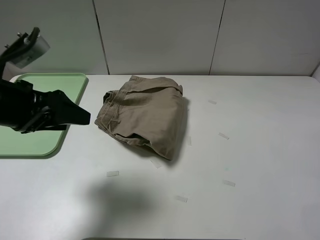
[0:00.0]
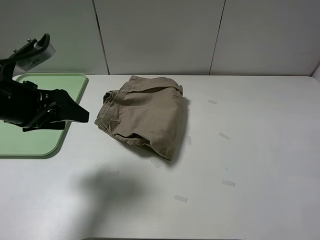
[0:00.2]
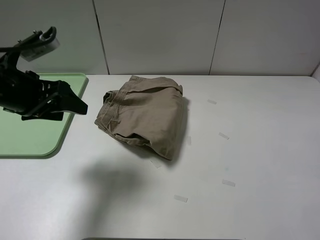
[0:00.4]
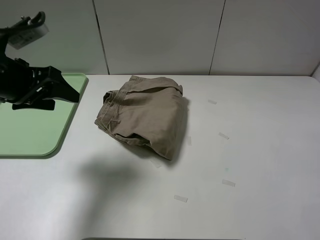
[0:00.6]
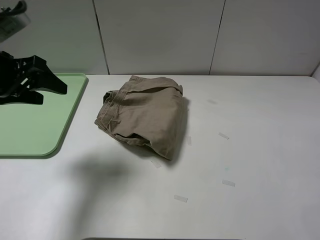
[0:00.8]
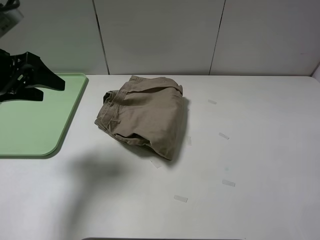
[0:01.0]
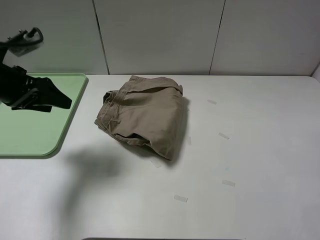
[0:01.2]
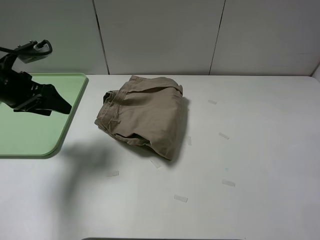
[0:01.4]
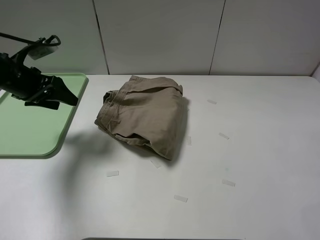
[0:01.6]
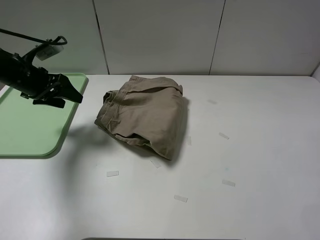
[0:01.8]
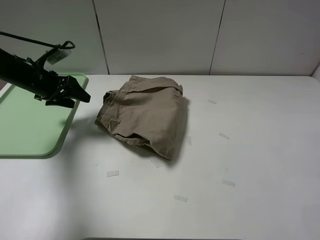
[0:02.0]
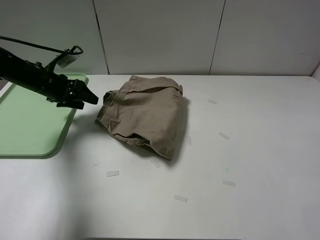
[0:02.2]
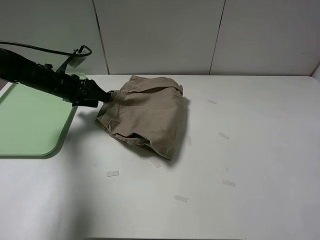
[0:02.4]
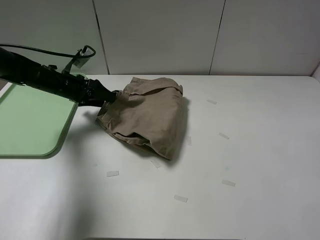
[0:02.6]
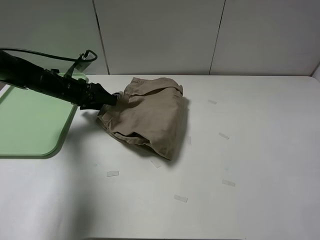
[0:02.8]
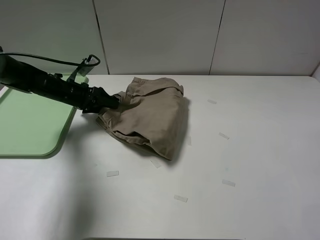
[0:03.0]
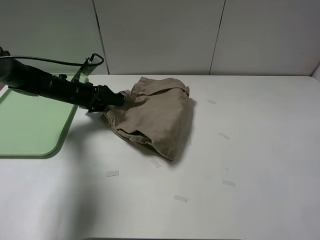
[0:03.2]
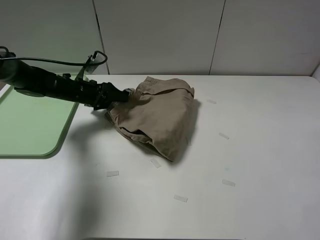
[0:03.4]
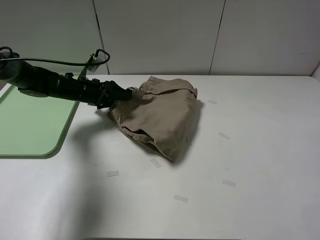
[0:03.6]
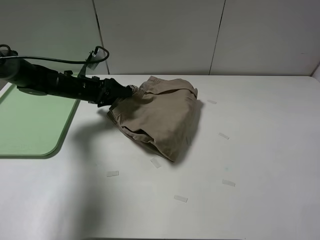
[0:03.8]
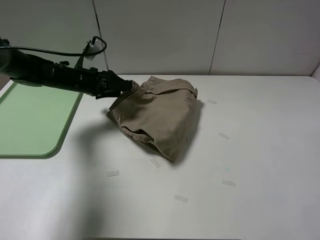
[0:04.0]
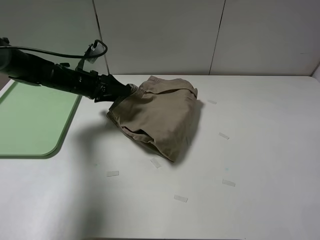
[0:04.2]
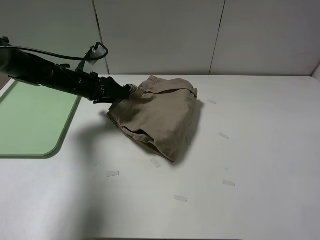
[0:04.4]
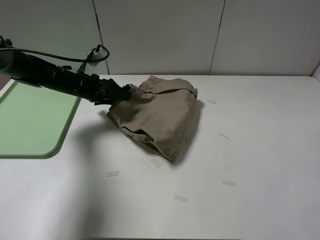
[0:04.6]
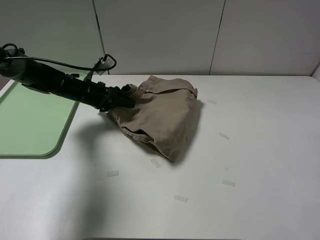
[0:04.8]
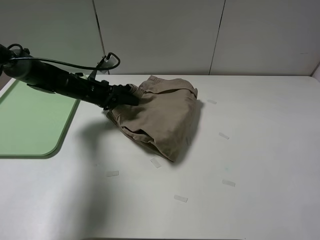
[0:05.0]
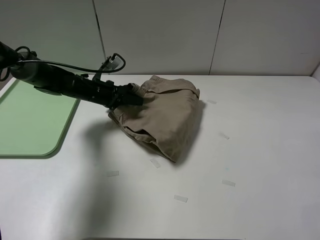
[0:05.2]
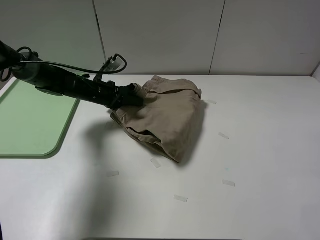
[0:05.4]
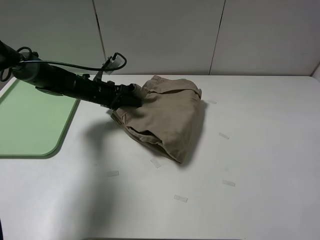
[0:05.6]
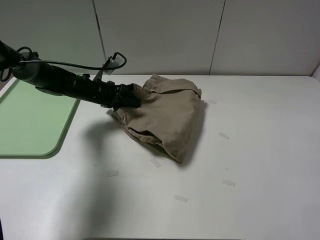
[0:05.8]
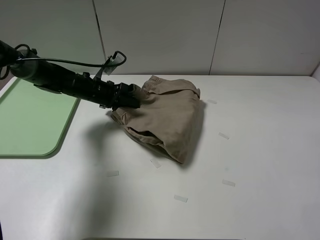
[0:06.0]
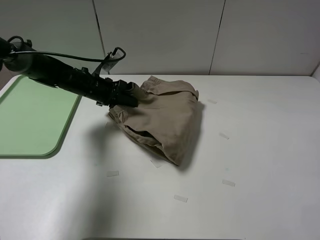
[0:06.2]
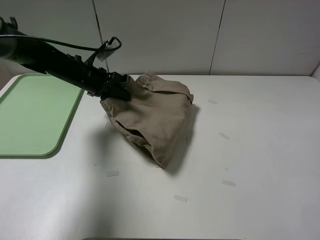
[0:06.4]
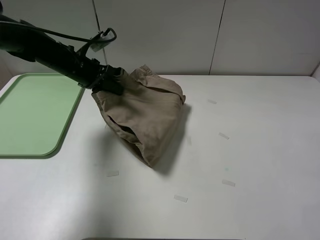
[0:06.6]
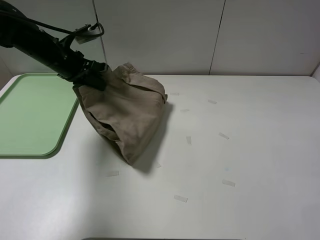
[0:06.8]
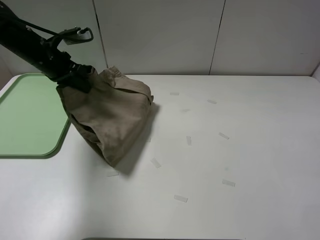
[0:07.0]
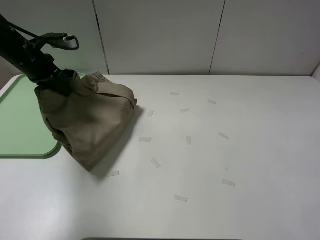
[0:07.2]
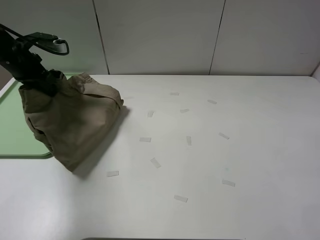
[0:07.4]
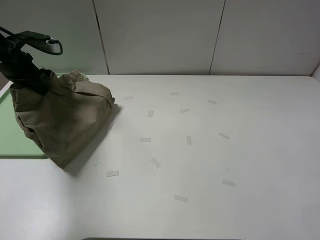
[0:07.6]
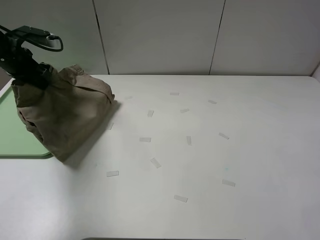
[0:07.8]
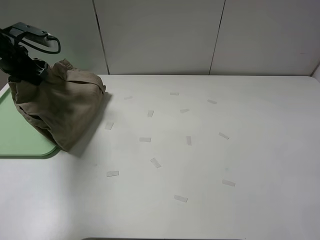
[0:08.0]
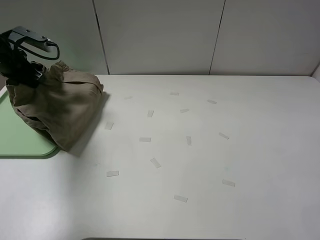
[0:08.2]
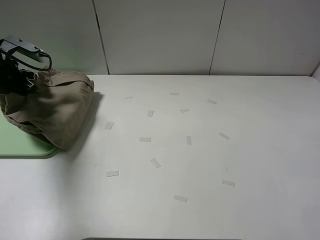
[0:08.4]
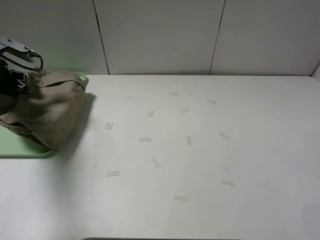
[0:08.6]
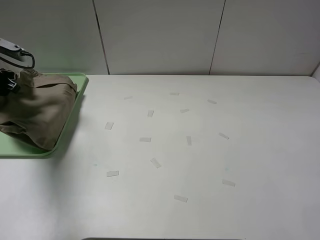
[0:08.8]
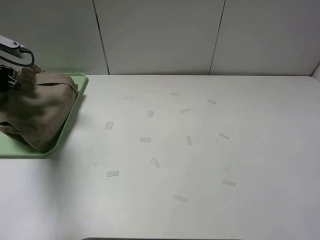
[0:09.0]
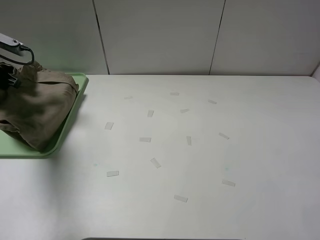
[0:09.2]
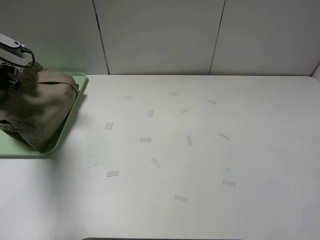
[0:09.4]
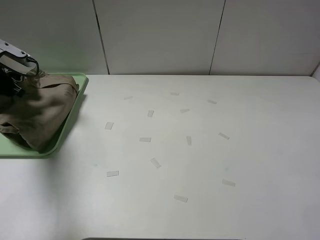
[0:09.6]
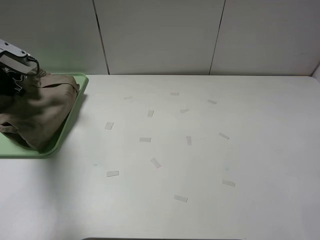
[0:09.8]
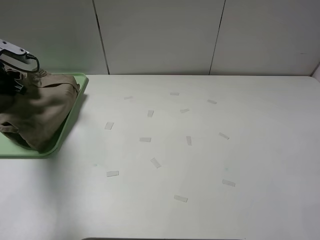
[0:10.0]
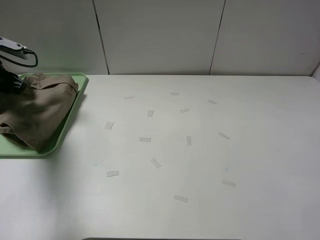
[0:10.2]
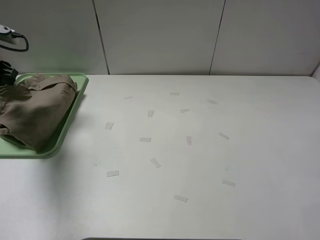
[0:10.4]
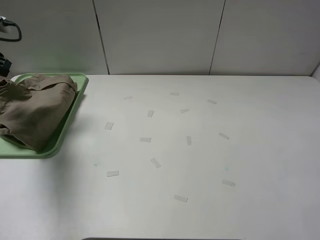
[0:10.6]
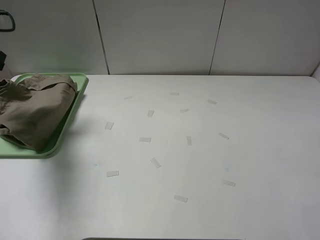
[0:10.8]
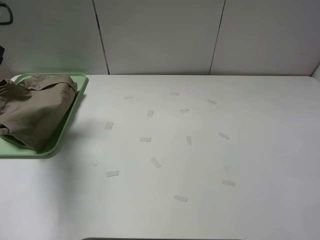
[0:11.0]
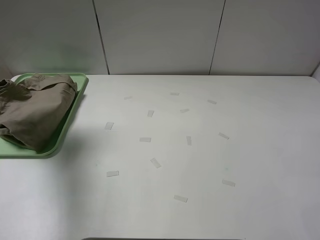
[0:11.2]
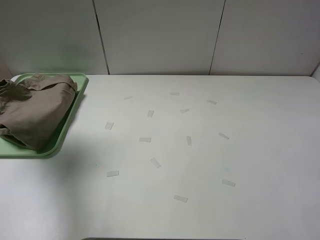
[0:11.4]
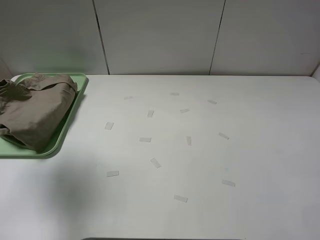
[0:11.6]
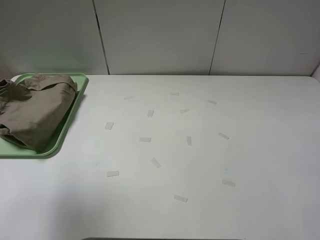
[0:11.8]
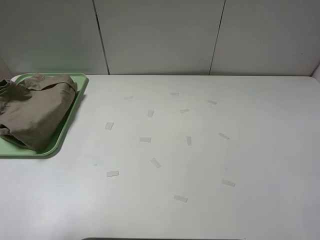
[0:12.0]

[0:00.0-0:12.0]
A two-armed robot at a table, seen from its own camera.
Task of the whole recording: fold the khaki jeans in half with two grippers, then fold them in half again, and use the left claw to place the folded fold khaki jeans on the tray.
Step, 0:00.0 to 0:03.0: Grasp the khaki trousers with the left gripper.
Step, 0:03.2 to 0:10.4: Fold the khaki trousers from left to right with the left gripper.
0:00.0 to 0:01.6: The left gripper goes approximately 15 cm forward and to the left.
0:01.6 to 0:03.0: The left gripper is displaced downward, forward and to the right by some 15 cm.
0:03.0 to 0:04.4: The grippers stay close to where they were, moving slightly.
0:04.4 to 0:06.0: The left gripper closes.
0:06.0 to 0:07.6: The left gripper travels to the left and upward by about 20 cm.
0:07.6 to 0:09.0: The left gripper travels to the left by approximately 5 cm.
0:09.0 to 0:10.4: The left gripper opens up.
0:10.4 to 0:12.0: The left gripper is displaced backward and upward by some 35 cm.

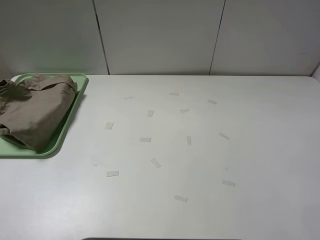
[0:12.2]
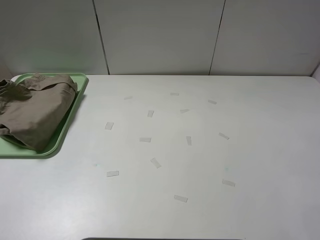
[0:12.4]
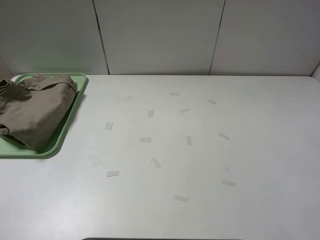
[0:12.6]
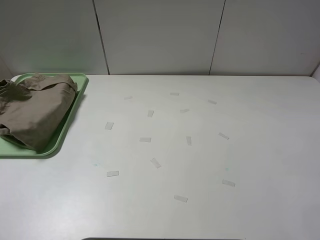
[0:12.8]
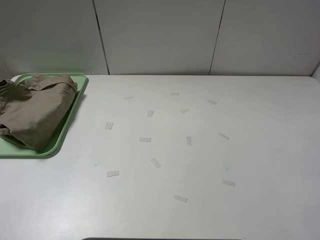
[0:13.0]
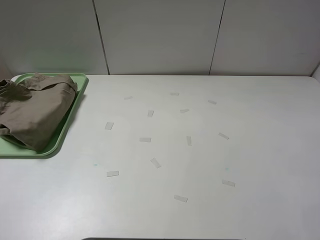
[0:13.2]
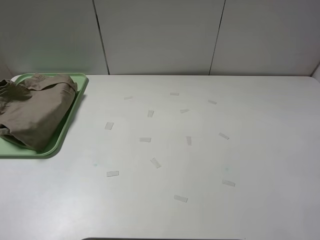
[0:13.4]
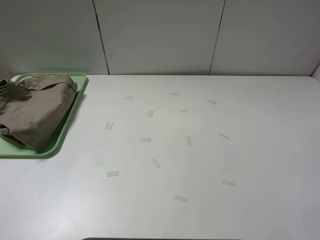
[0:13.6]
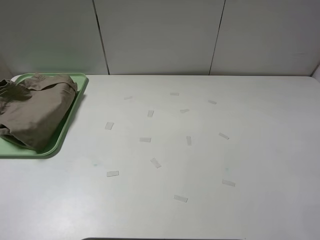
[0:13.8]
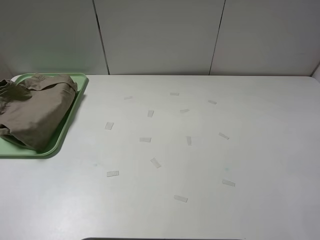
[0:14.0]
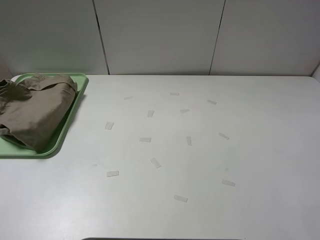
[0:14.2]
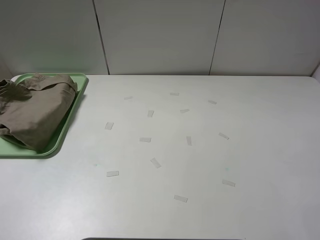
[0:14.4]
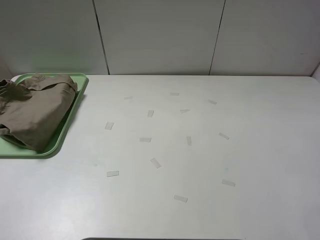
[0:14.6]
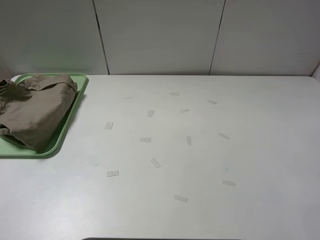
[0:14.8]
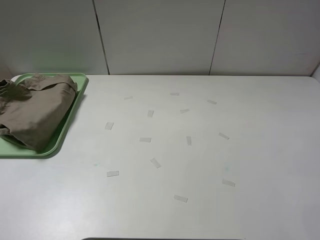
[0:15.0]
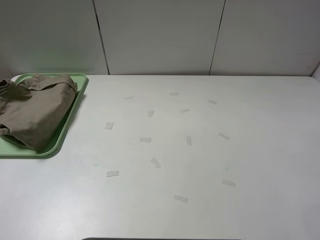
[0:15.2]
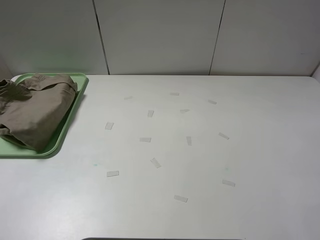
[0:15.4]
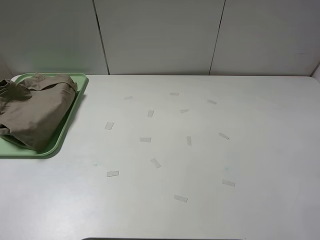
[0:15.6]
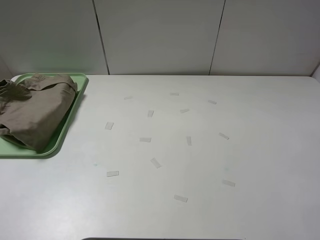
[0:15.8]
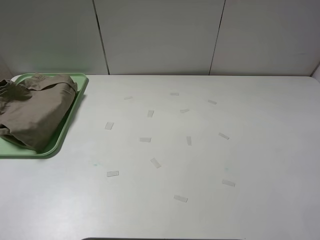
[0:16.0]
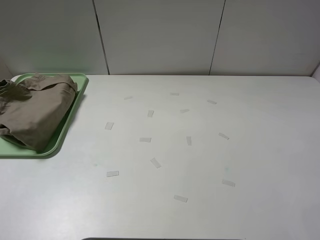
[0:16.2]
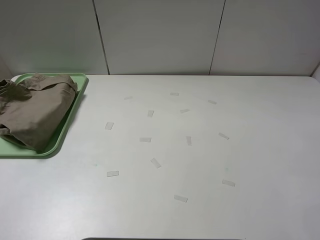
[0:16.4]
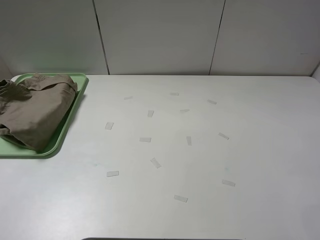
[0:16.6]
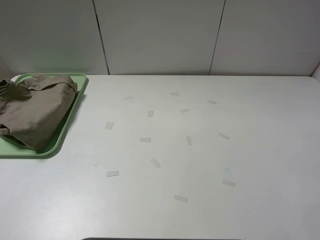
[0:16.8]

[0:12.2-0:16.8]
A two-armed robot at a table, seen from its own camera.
Task of the whole recording: fold the khaki jeans in half with two grippers, then fold them in half again, and use the left claw to place the folded fold khaki jeans on the tray.
0:15.2 to 0:16.8: Both grippers stay put.

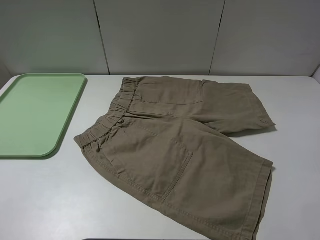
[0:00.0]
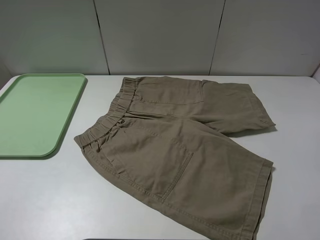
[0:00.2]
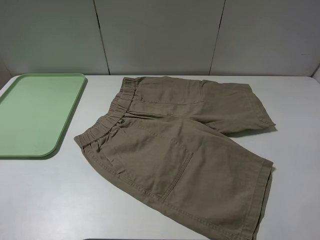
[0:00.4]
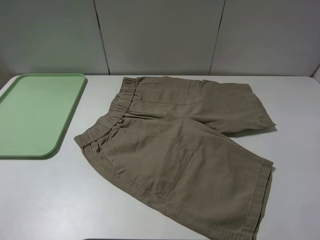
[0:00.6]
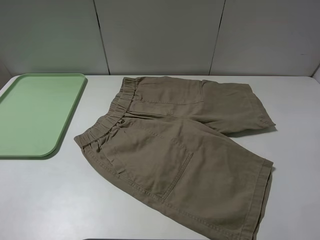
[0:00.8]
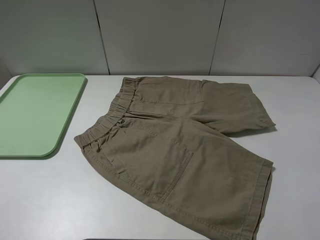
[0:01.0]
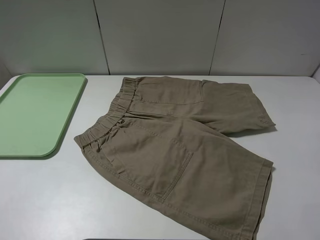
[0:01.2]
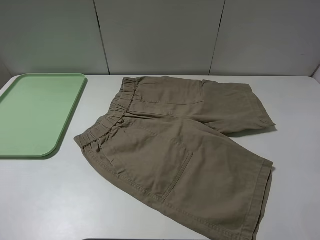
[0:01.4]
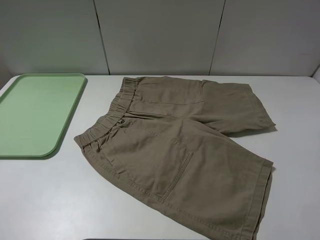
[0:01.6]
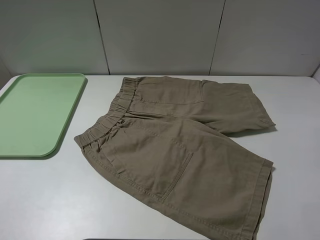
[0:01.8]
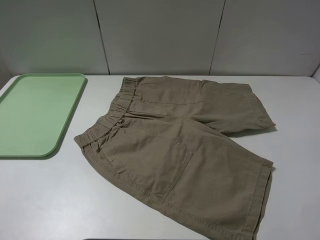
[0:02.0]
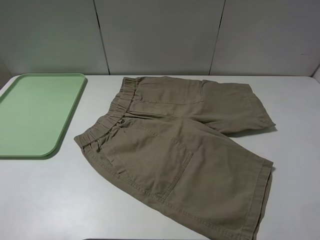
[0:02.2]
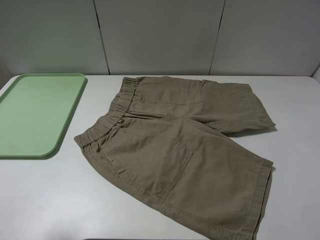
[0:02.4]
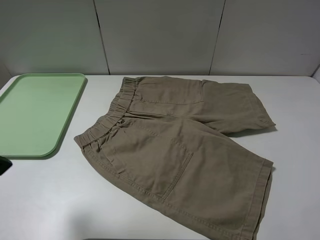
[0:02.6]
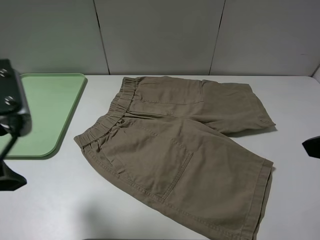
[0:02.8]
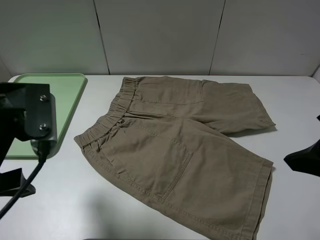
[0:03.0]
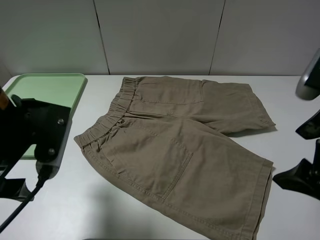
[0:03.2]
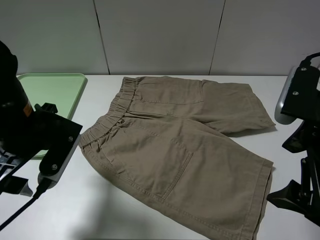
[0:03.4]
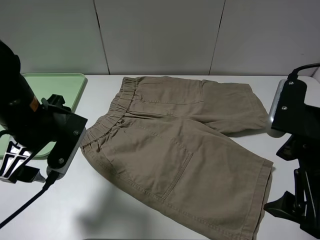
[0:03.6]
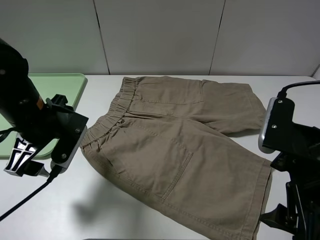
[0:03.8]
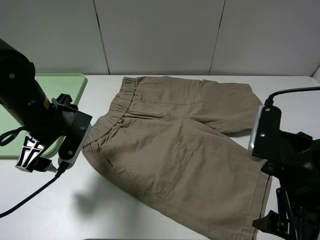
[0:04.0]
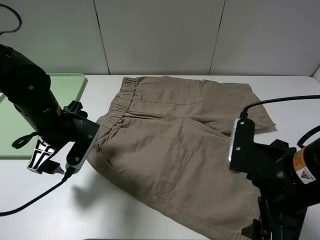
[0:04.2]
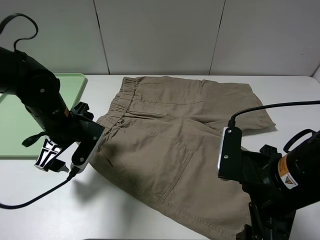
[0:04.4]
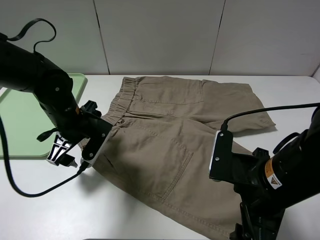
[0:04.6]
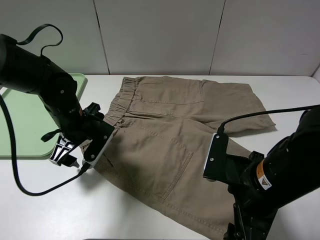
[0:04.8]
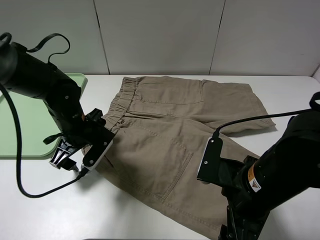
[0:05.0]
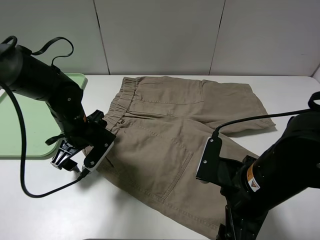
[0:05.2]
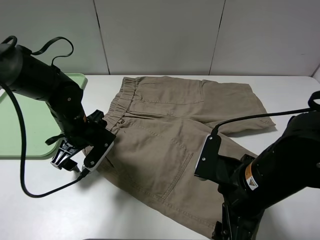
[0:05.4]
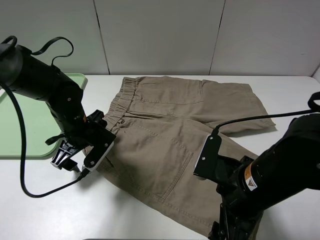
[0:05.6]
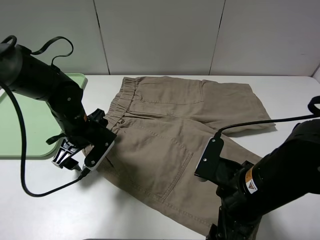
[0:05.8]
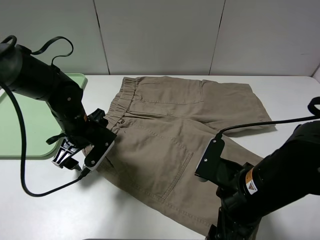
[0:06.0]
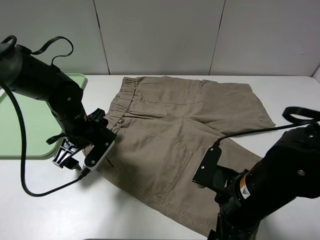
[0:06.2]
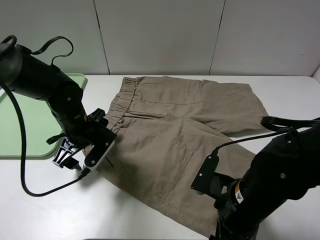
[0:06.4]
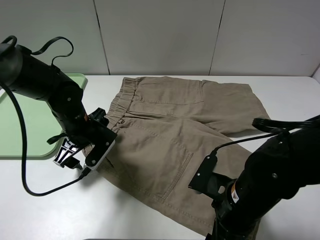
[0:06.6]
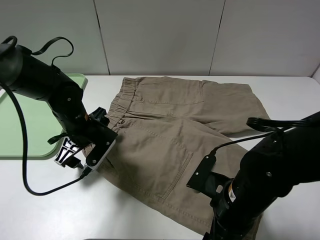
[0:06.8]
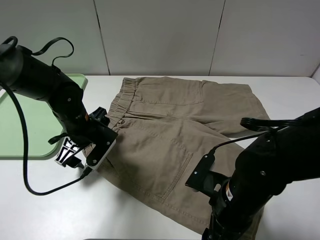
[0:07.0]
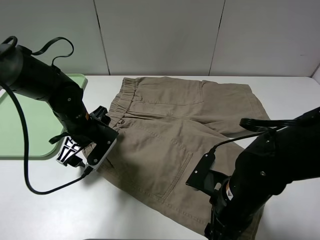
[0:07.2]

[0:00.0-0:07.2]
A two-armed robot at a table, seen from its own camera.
Task of the whole recording: fold the khaki jeans in half with two grippers, then fold them in half again, and use the left claw to place the folded fold khaki jeans on the tray.
0:00.0 to 0:01.4: Both grippers stay put.
0:01.4 to 0:02.8: The right gripper heads forward and to the left, covering about 15 cm. Meanwhile the left gripper moves forward and to the right, about 15 cm.
0:02.8 to 0:04.4: The left gripper goes about 20 cm downward and forward. Meanwhile the right gripper heads downward and to the left, covering roughly 15 cm.
0:05.8 to 0:07.2: The right gripper is displaced downward by approximately 5 cm.
